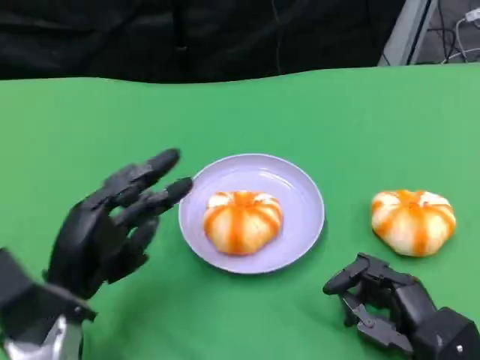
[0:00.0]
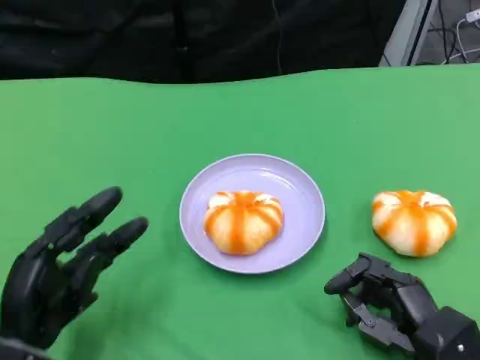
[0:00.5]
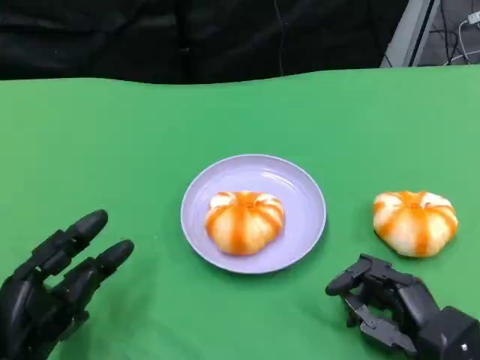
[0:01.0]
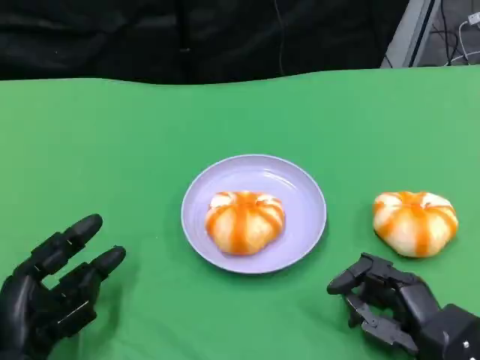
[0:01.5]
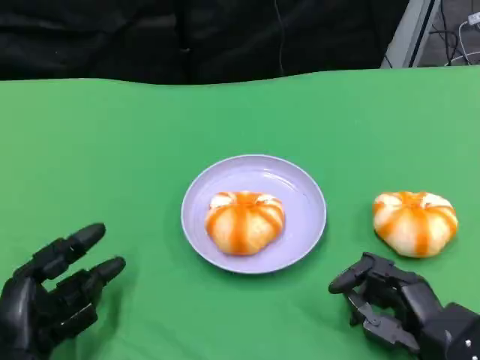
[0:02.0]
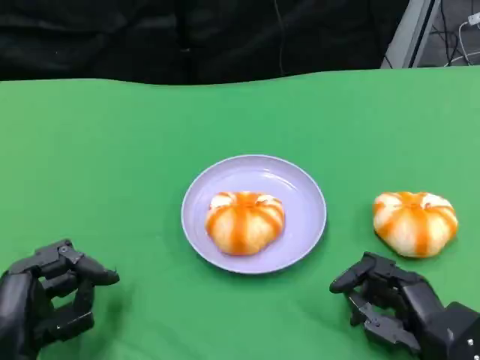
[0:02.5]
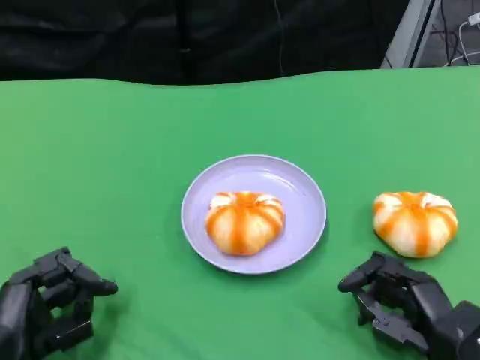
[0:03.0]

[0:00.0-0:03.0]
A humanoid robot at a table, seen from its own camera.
Task of the whole recording: Grasp the bread from the table and place it into the plate.
0:00.0 to 0:01.5: The left hand moves about 5 cm.
0:01.5 to 0:03.0: The hands move only a little.
